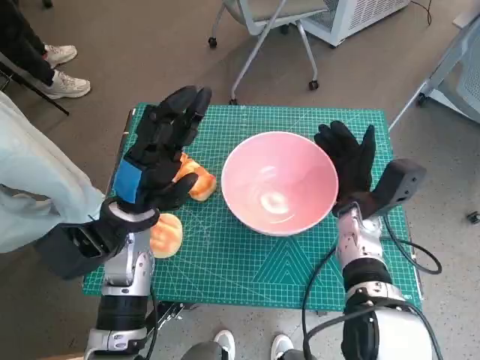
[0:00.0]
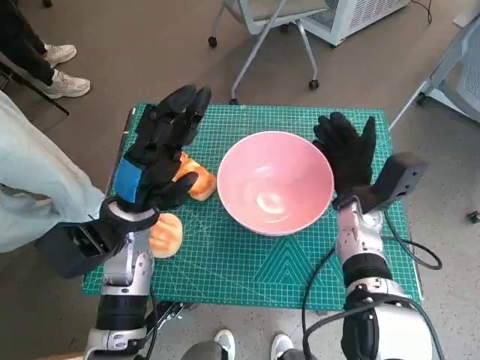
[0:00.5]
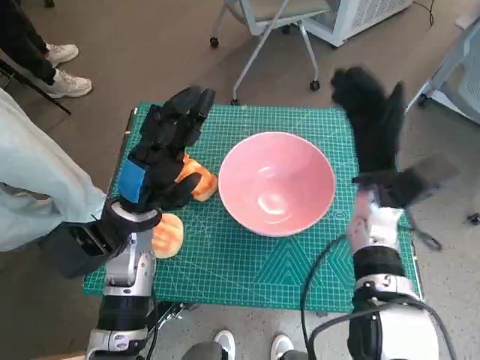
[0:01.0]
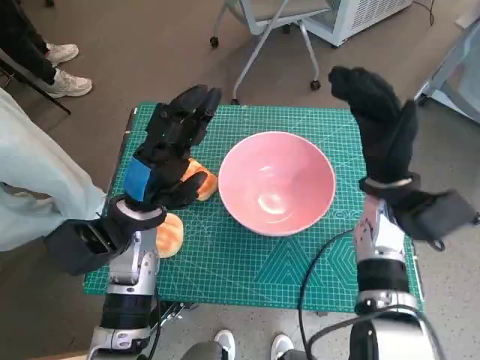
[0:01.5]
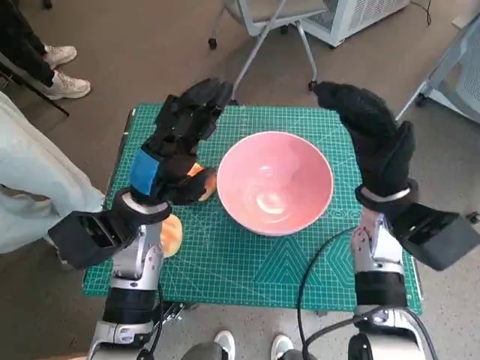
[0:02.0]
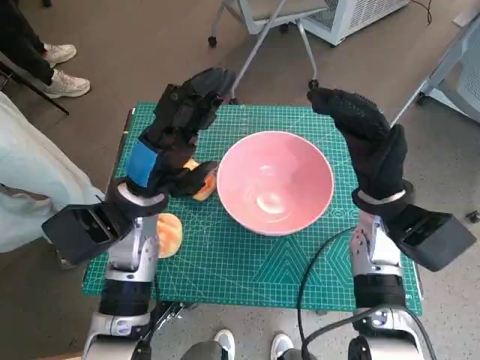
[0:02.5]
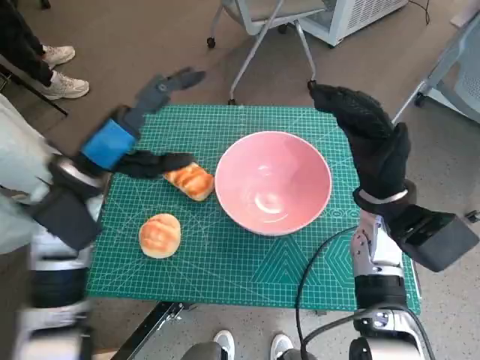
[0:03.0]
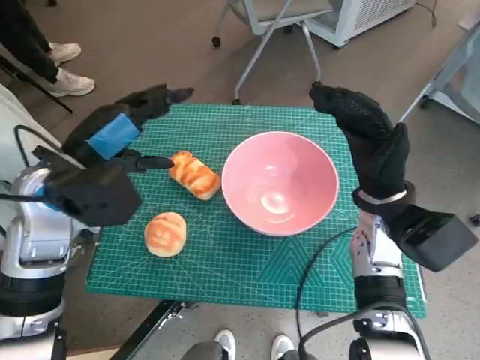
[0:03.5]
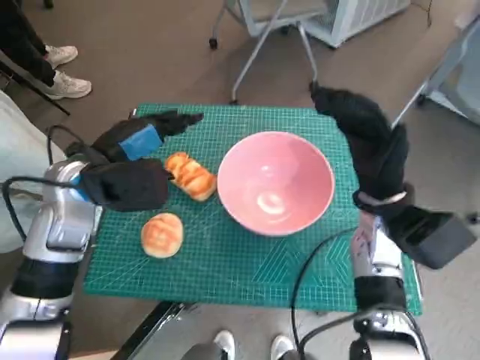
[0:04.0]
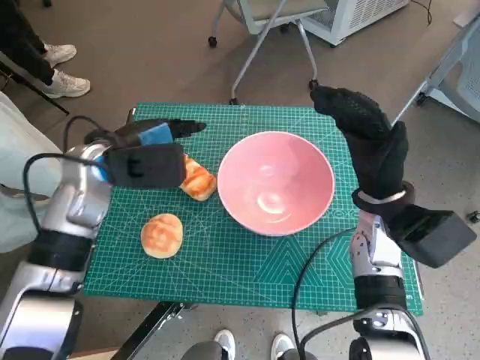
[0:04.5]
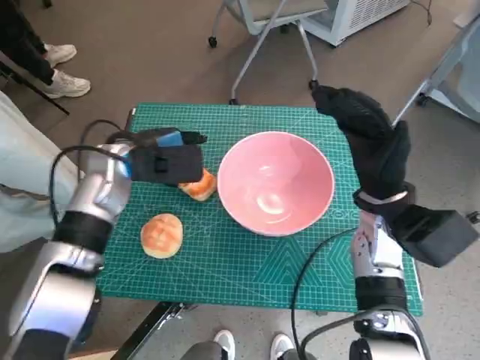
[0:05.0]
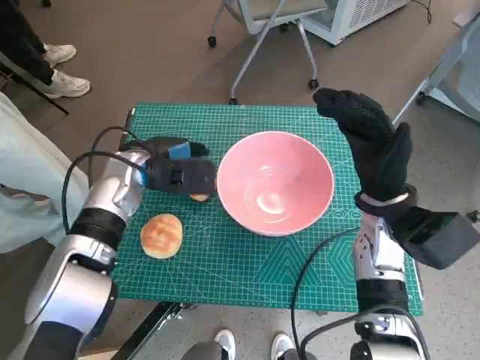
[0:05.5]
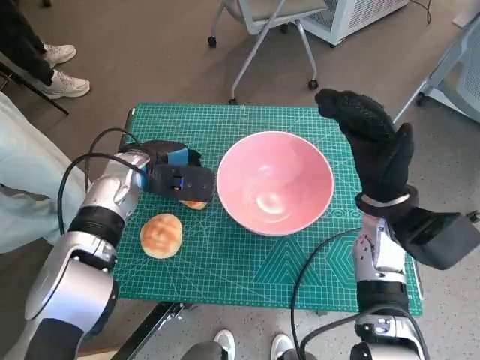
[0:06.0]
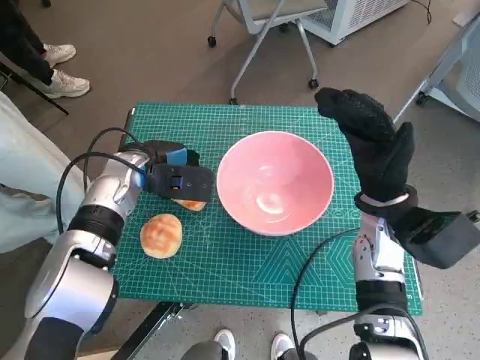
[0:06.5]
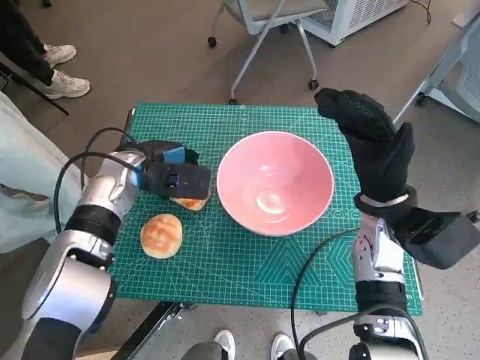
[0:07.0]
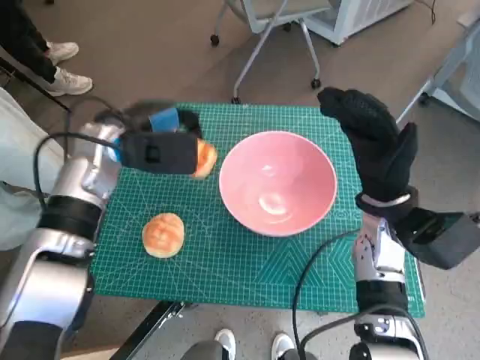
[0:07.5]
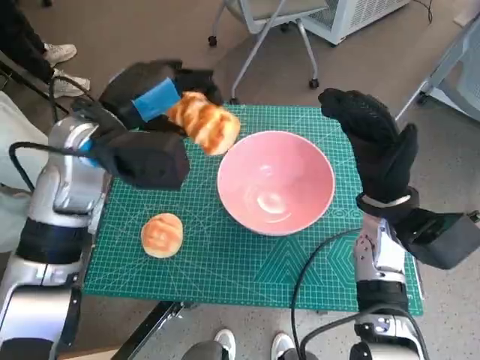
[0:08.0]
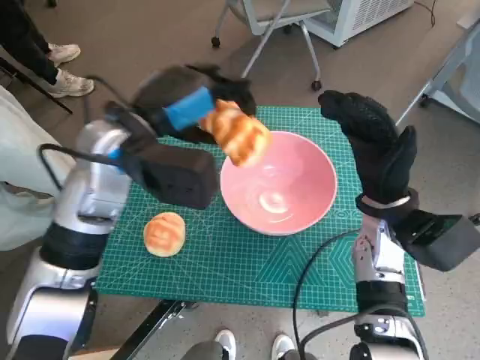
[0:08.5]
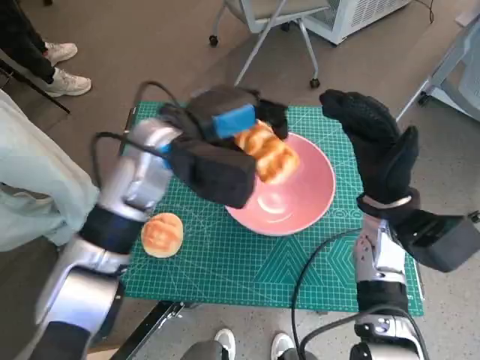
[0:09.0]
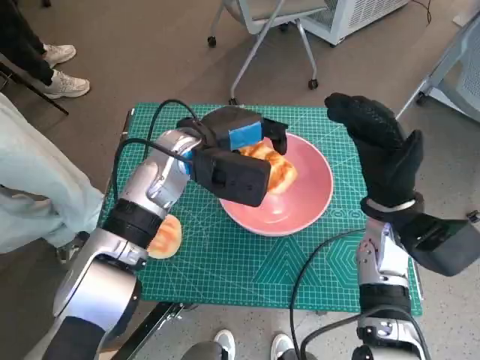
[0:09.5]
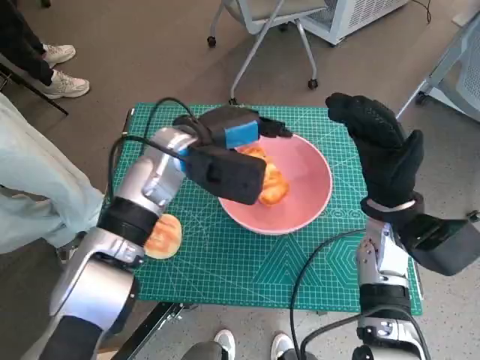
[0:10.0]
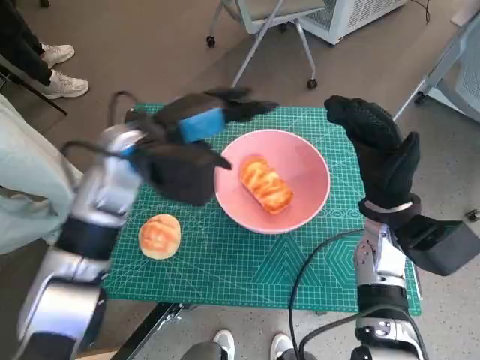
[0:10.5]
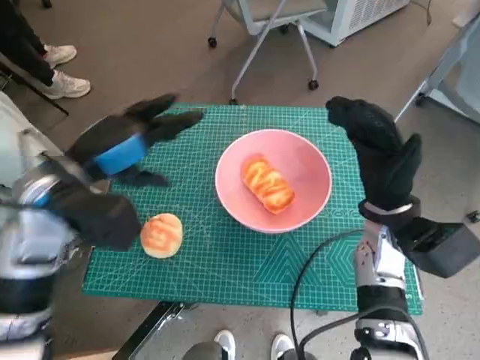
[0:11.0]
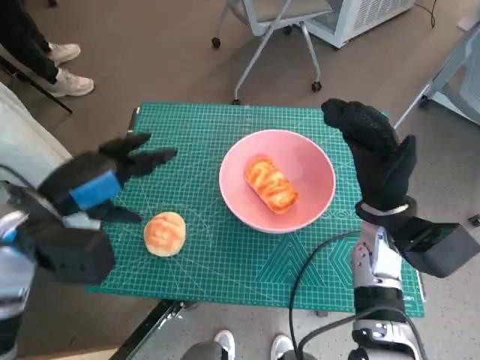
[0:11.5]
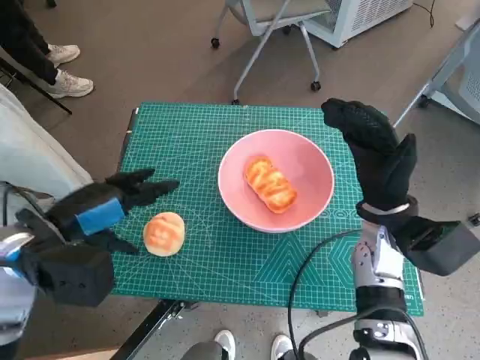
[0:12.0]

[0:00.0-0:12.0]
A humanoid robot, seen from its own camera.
Task of the whole recording: Push the bowl into the center of the table and put the bread into the bowl.
Step, 0:02.0 to 0:07.0: Grasp the long bread with left hand.
Step, 0:07.5 to 0:10.5: Place the long bread in pink bowl with left hand.
0:00.0 to 0:02.0: The right hand shifts approximately 10 cm upward.
0:02.0 to 0:04.0: The left hand travels upward and to the left by approximately 10 cm.
0:04.0 to 0:06.0: The left hand travels downward and forward by some 10 cm.
0:06.0 to 0:08.0: The left hand heads upward, covering some 10 cm.
0:08.0 to 0:10.0: The left hand travels to the right and downward by some 10 cm.
0:10.0 to 0:12.0: The left hand is displaced to the left and backward by about 20 cm.

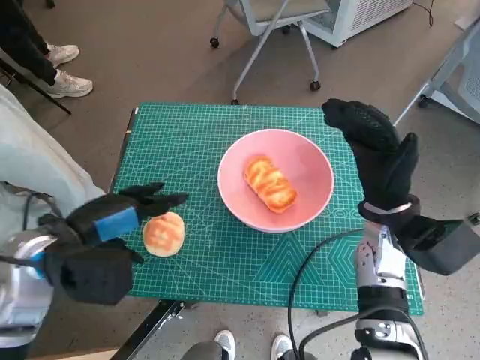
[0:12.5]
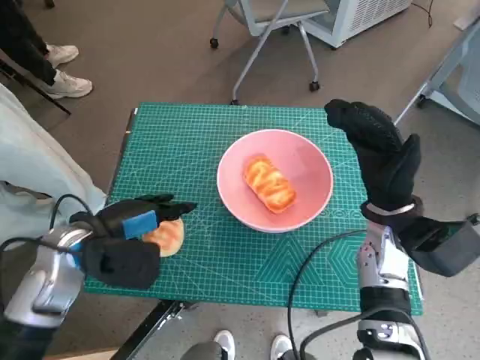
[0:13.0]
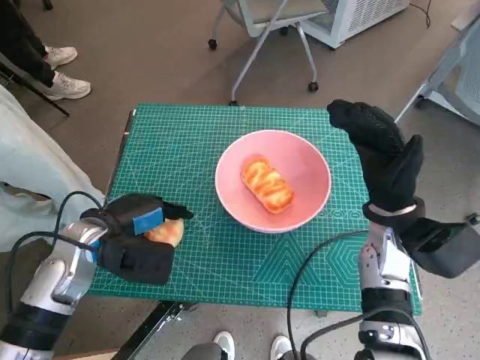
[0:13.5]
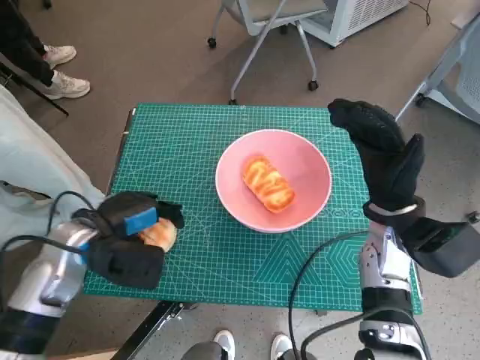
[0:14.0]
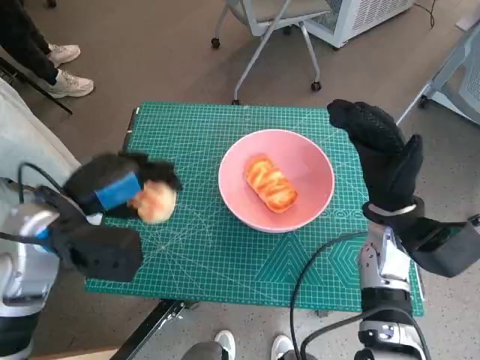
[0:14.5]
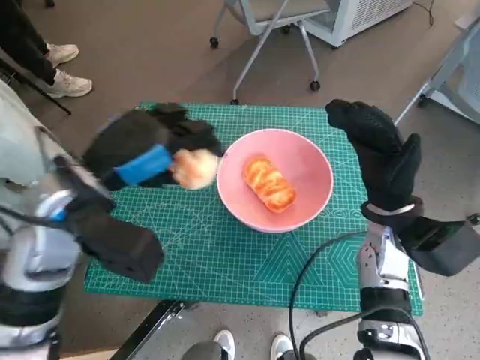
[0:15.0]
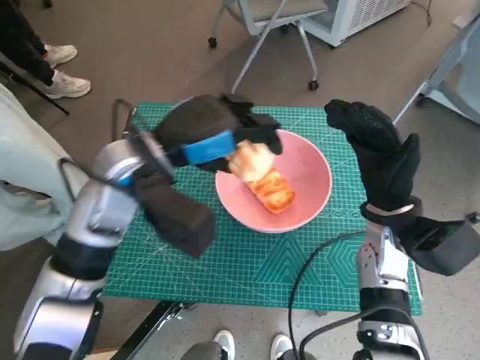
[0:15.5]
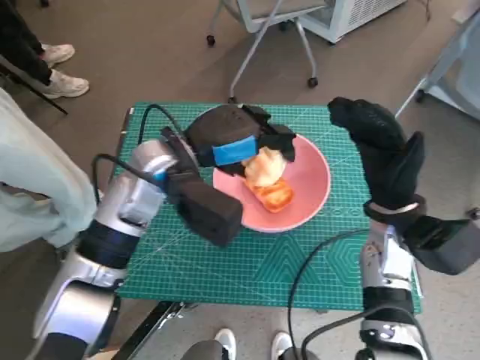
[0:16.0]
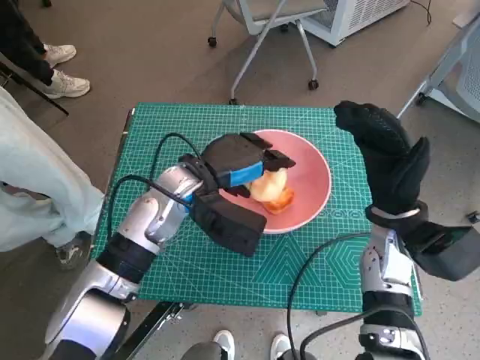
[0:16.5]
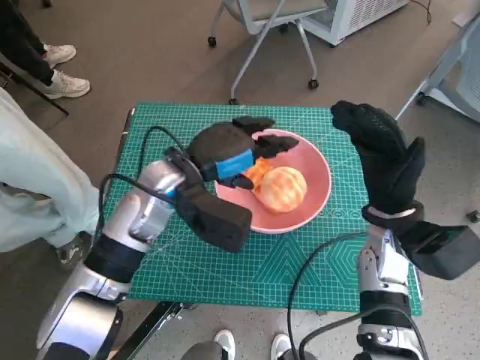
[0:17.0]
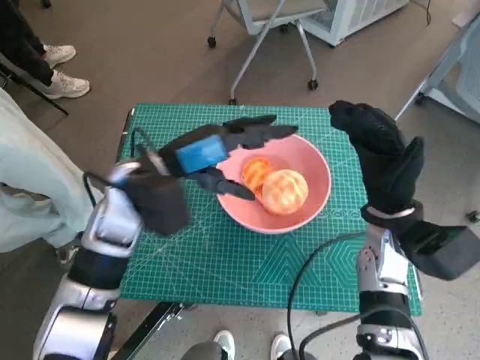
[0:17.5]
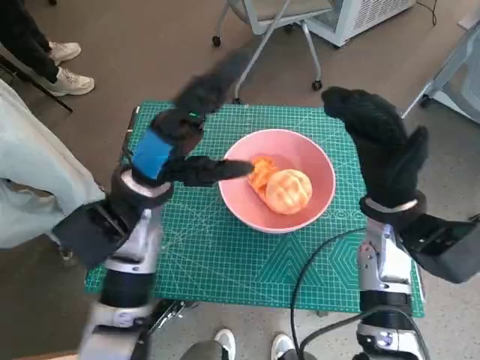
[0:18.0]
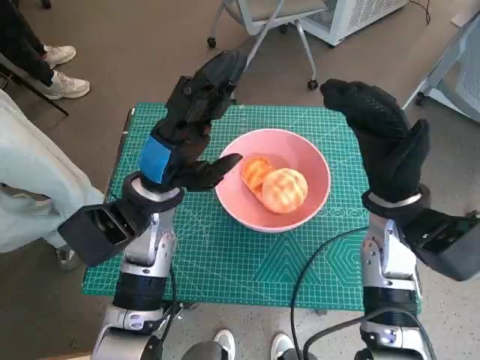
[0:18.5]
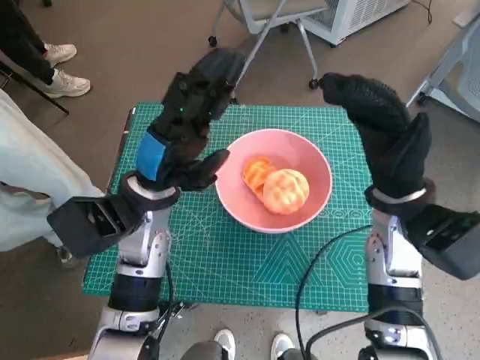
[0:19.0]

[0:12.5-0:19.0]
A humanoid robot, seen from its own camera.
Task of the whole recording: Push the bowl into the center of the table and put the bread into the bowl.
Step, 0:14.0 to 0:17.0: Place the round bread in pink bowl with left hand.
0:14.5 to 0:17.0: The left hand goes approximately 15 cm to the right and forward.
0:17.0 to 0:19.0: The right hand moves roughly 5 cm.

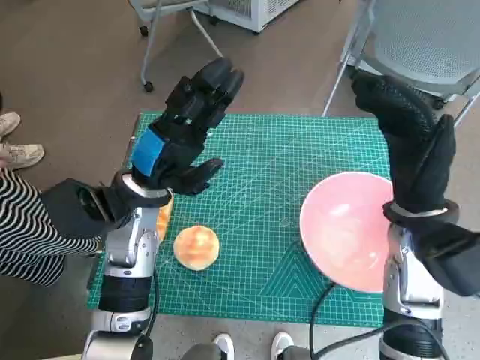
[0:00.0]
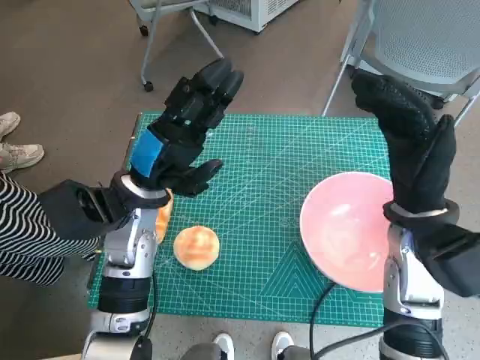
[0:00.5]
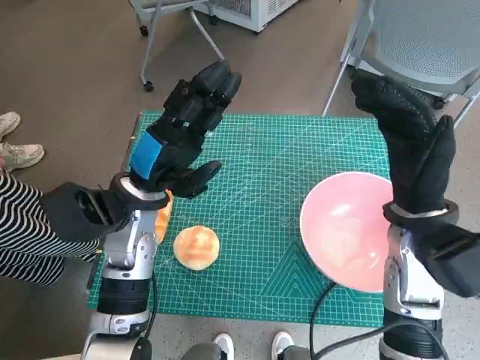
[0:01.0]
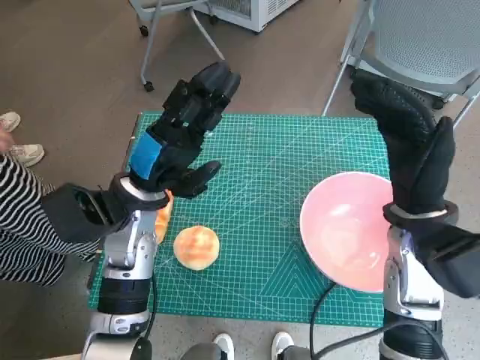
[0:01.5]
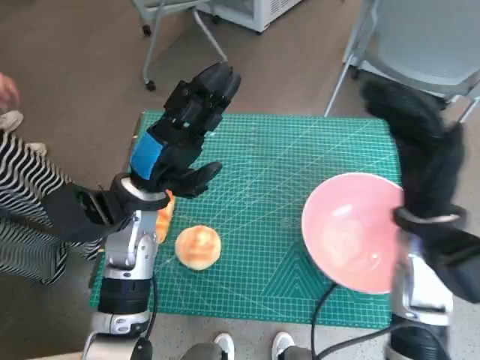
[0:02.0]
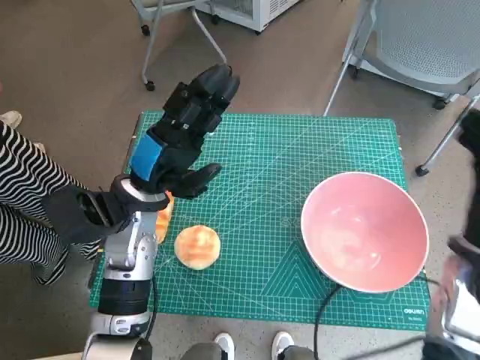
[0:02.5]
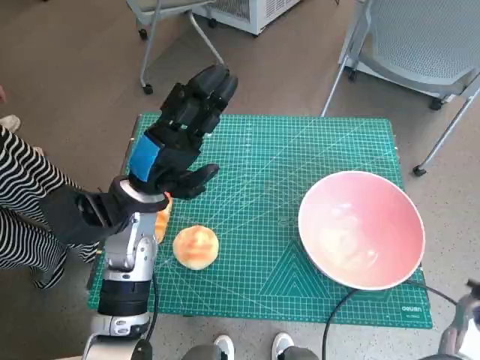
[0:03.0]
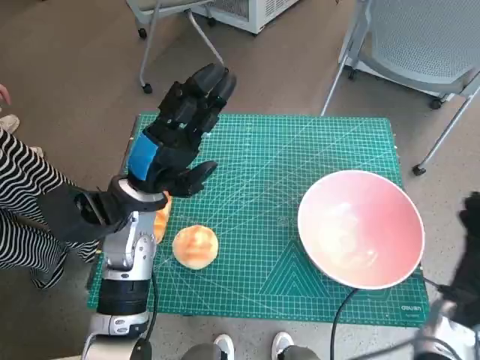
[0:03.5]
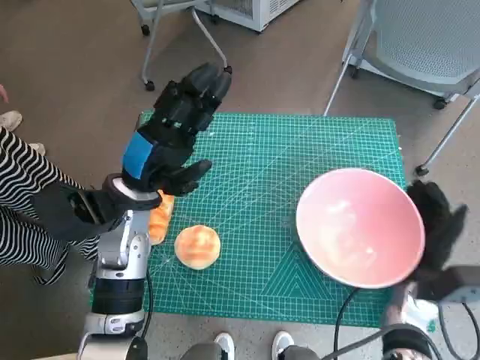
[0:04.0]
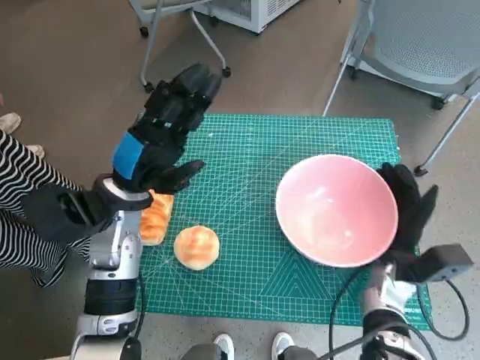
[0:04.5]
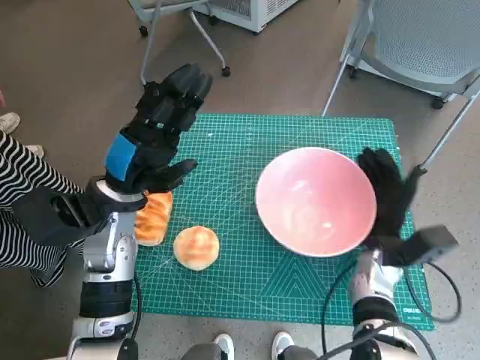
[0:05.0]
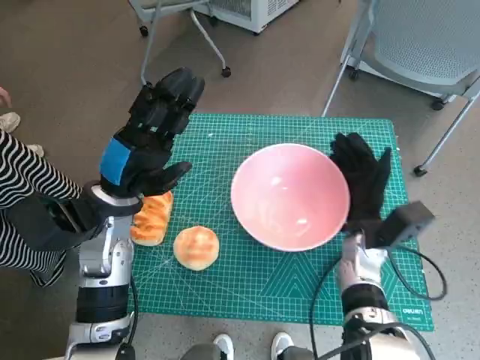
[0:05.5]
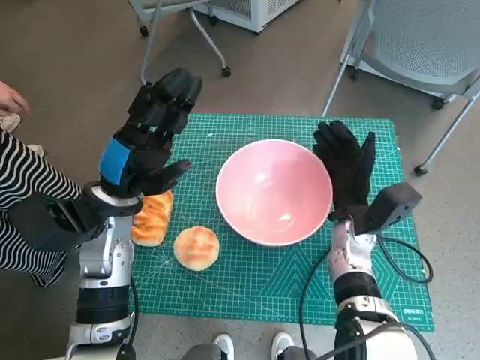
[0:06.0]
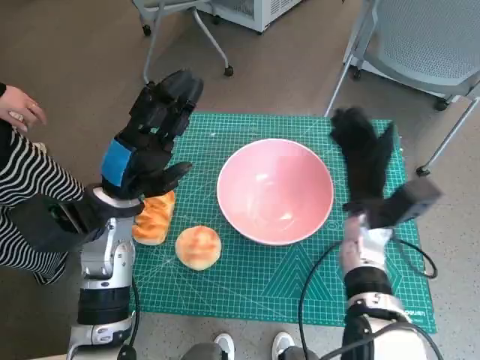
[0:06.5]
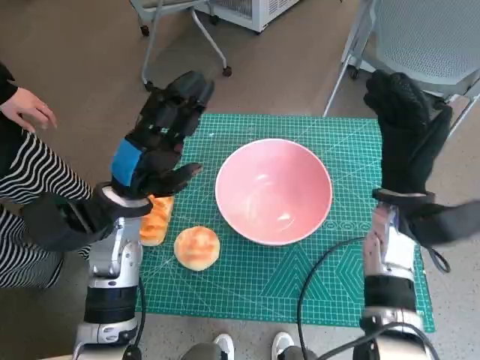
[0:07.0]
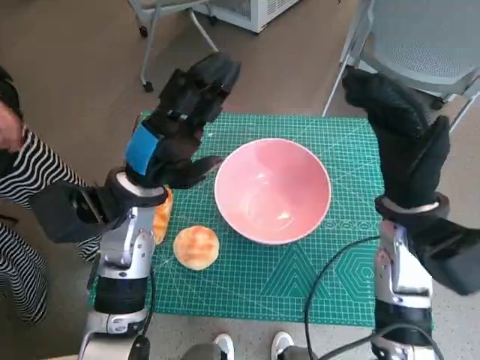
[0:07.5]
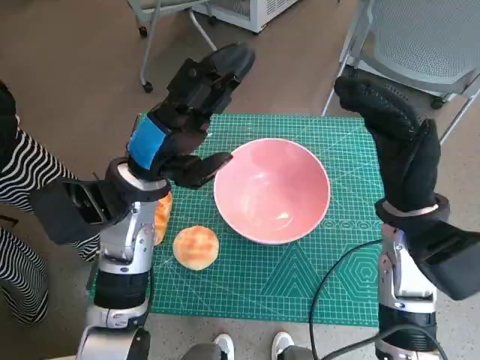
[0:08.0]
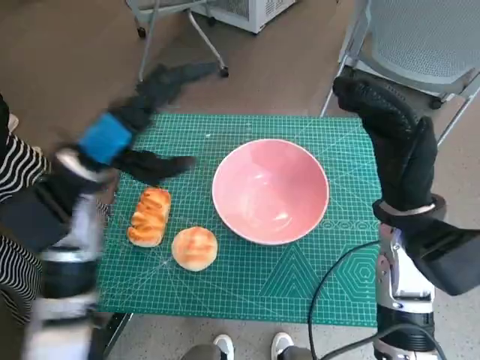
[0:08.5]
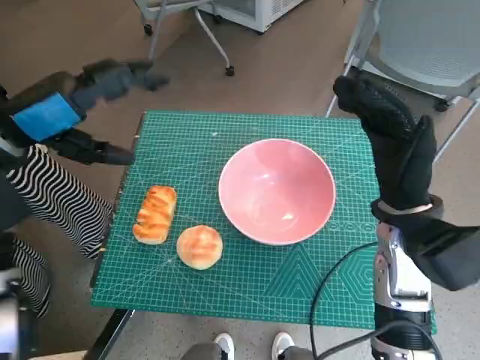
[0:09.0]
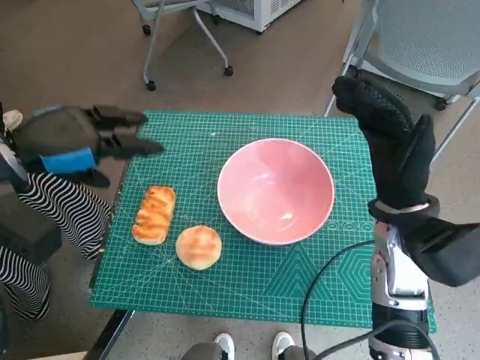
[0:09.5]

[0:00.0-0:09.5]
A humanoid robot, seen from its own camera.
Task of the whole recording: Push the bowl into the center of the table and put the bread into the bowl.
Step, 0:00.0 to 0:06.0: Move the pink bowl to the center of table with right hand.
0:02.0 to 0:04.0: The right hand is displaced downward by roughly 15 cm.
0:04.0 to 0:05.5: The right hand moves to the left and forward, roughly 10 cm.
0:05.5 to 0:07.5: The right hand travels upward by about 15 cm.
0:07.5 to 0:09.5: The left hand shifts about 15 cm to the left and upward.
